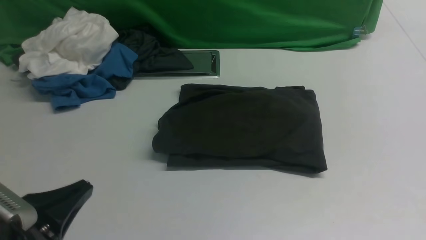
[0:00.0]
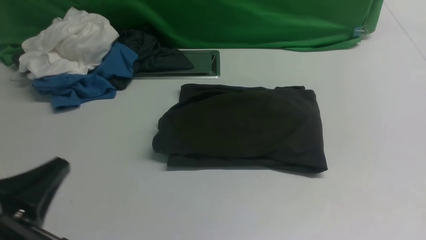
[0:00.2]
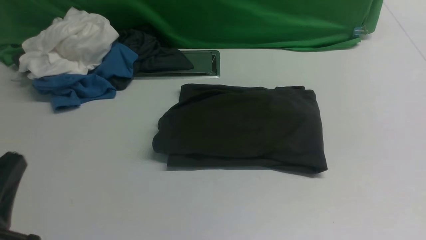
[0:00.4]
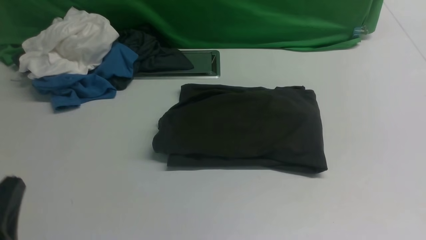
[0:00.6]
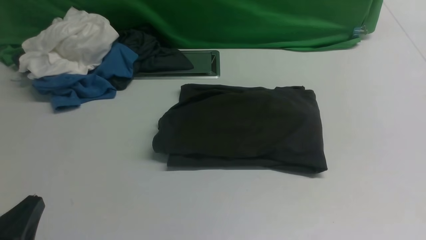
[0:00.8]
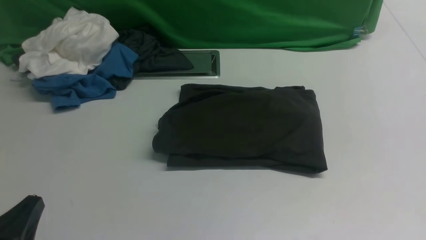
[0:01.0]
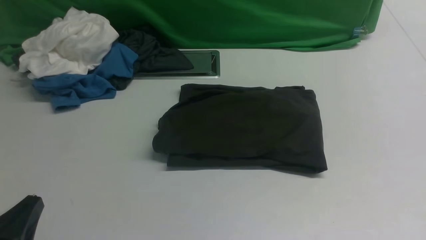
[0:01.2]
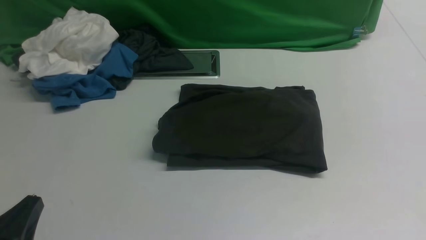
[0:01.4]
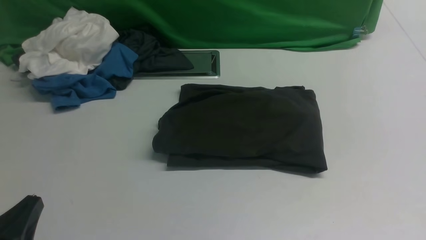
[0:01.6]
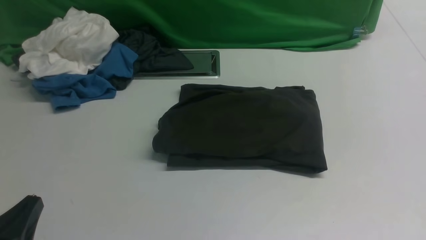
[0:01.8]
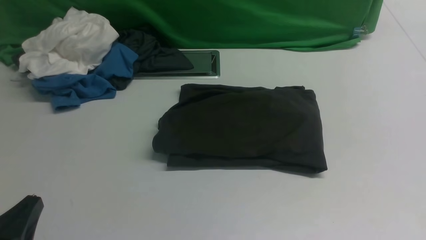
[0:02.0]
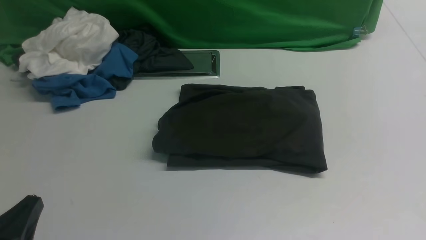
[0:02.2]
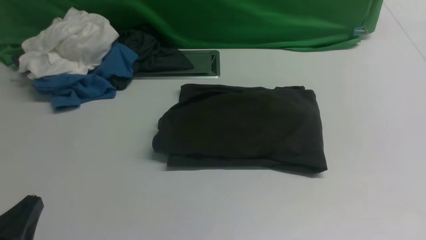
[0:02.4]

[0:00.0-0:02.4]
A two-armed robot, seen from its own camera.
0:00.0 to 0:01.2: The left gripper ends up roughly 5 cm from where it was.
0:01.2 to 0:02.4: Both grippers stay about where they are.
